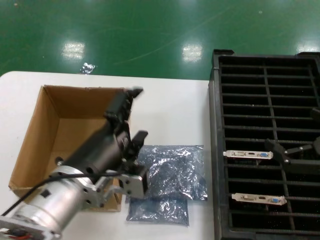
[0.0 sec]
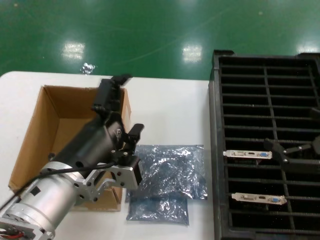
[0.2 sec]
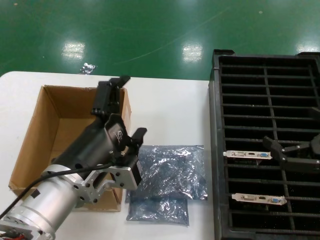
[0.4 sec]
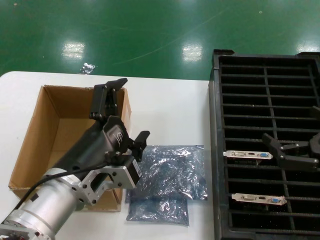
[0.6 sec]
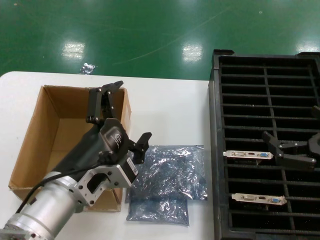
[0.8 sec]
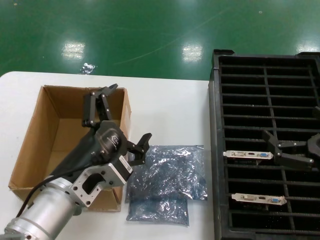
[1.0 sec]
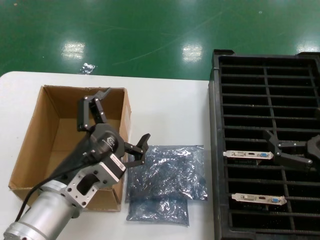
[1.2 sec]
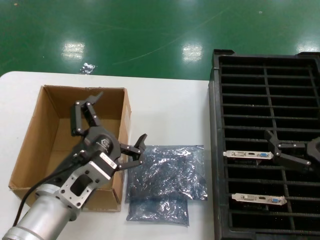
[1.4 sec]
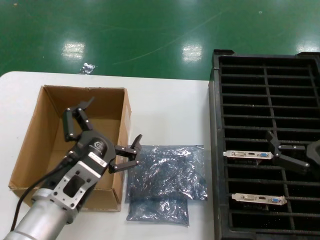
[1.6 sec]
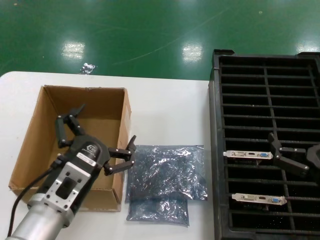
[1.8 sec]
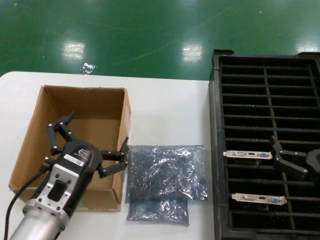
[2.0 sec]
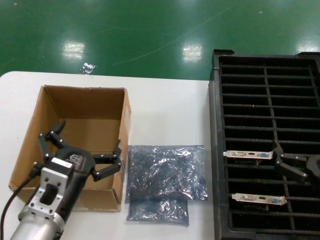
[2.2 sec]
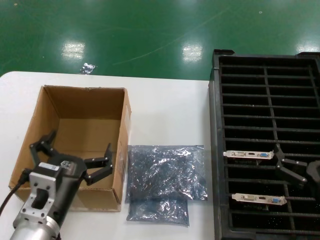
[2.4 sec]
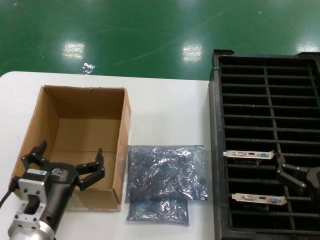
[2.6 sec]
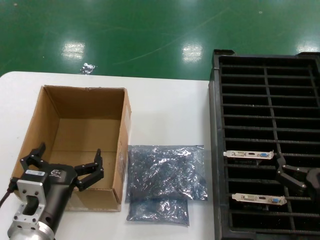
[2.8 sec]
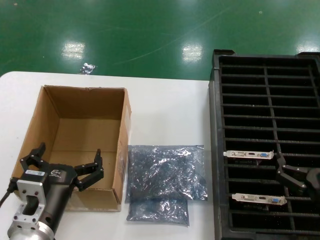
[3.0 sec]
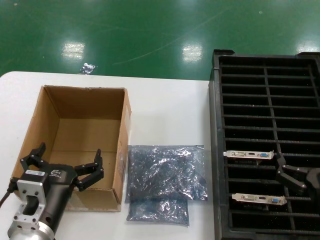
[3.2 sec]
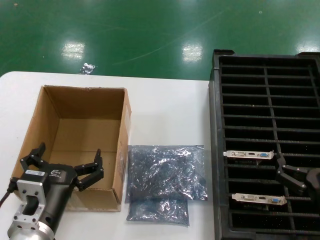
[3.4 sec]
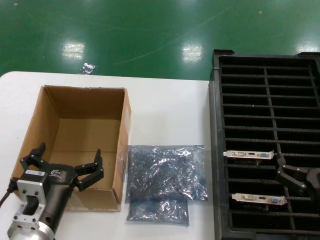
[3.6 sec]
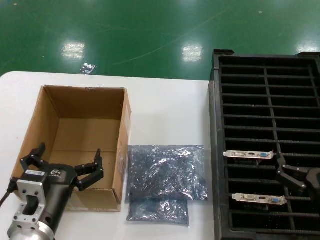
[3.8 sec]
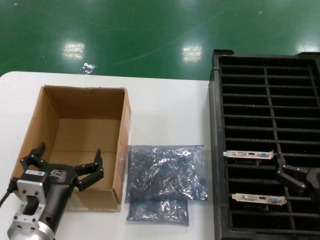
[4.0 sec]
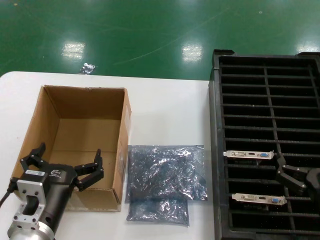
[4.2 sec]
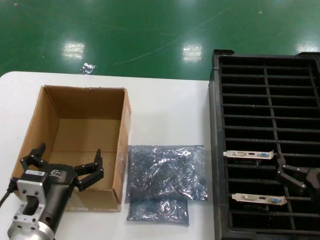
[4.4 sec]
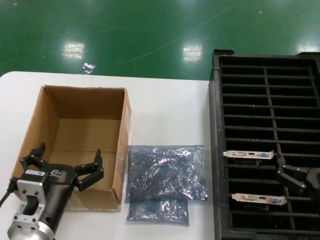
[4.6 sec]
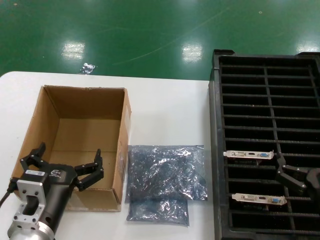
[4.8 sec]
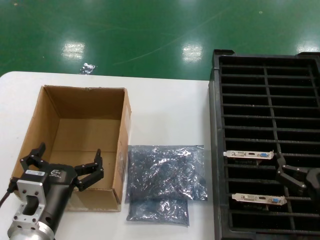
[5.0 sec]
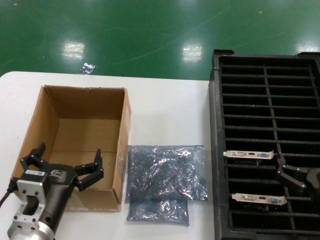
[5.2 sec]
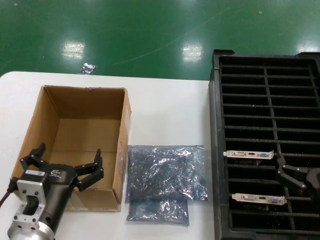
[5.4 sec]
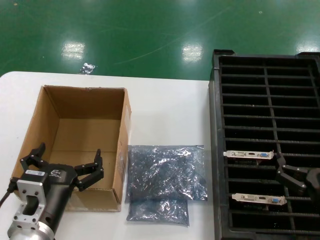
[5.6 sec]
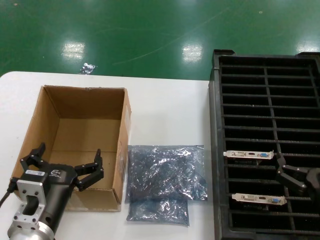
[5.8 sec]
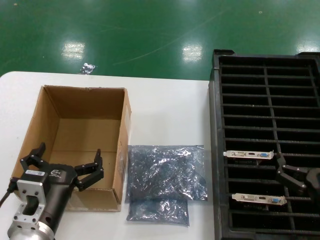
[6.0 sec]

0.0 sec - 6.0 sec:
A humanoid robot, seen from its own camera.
Task of the whole recording: take out graphics card from box remove packaging put into black container.
0.0 sec - 1.6 sec: The left hand travels downward by roughly 5 cm. Meanwhile the right hand goes some 10 cm downward.
1.6 sec - 3.0 sec: Both hands move downward, about 5 cm.
3.0 sec - 6.0 sec: Both hands stay about where they are.
